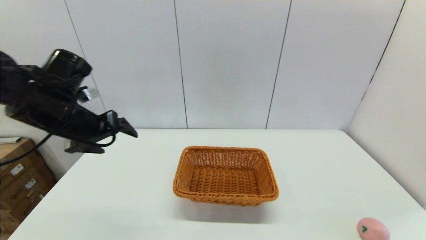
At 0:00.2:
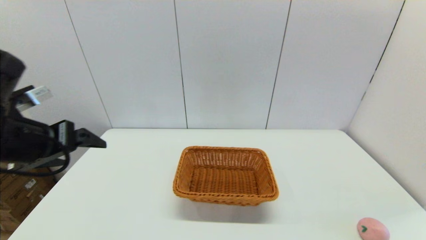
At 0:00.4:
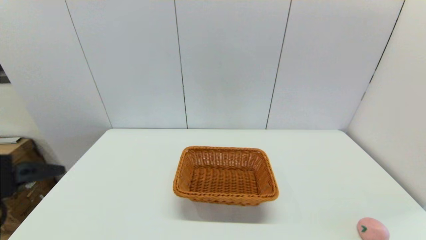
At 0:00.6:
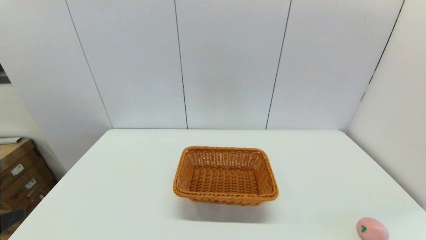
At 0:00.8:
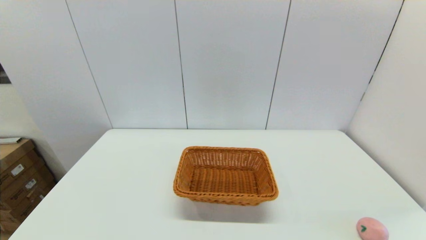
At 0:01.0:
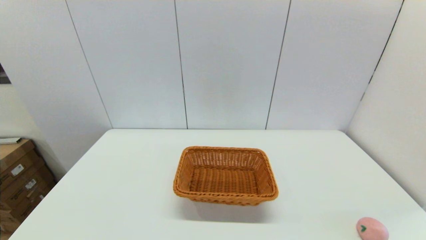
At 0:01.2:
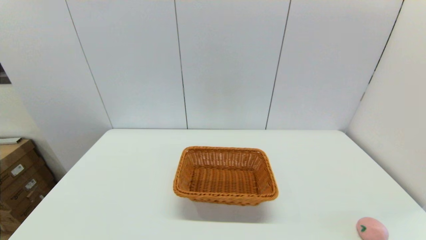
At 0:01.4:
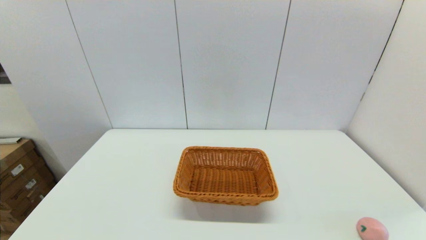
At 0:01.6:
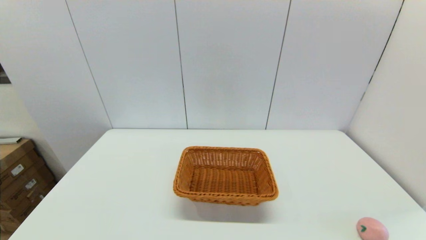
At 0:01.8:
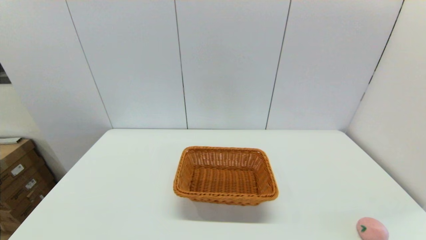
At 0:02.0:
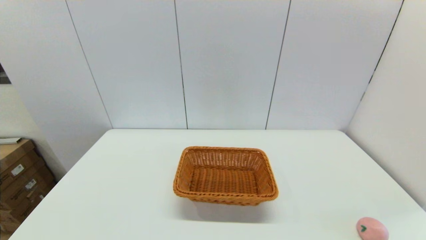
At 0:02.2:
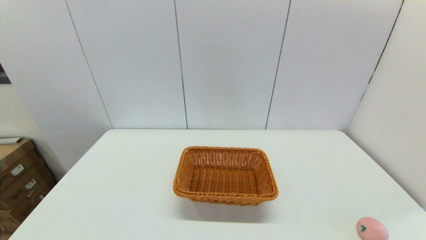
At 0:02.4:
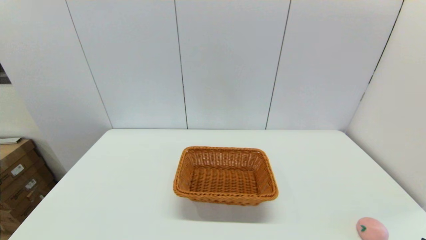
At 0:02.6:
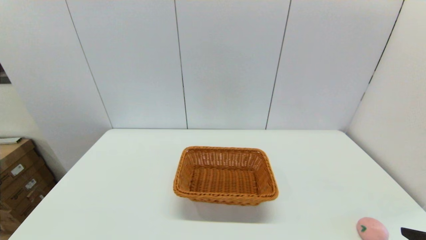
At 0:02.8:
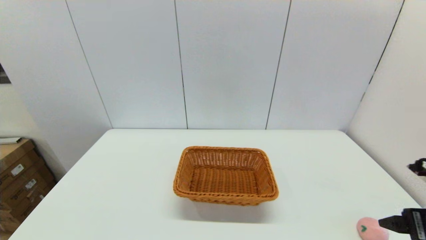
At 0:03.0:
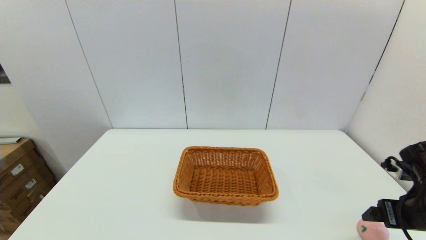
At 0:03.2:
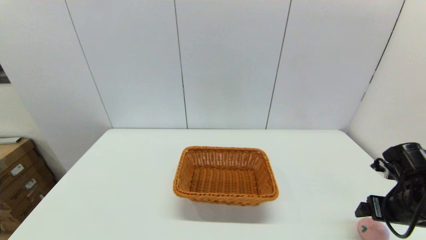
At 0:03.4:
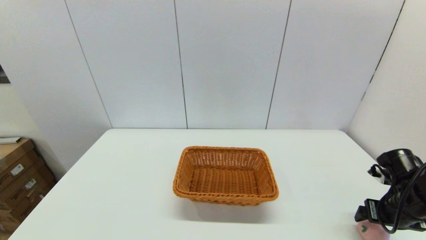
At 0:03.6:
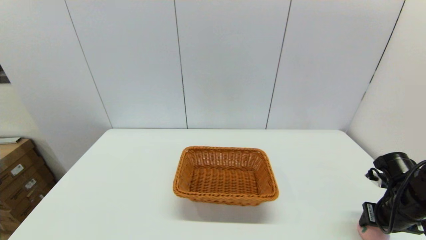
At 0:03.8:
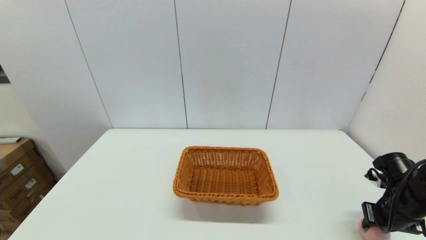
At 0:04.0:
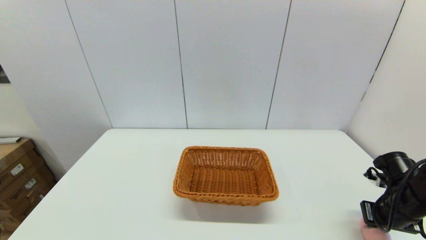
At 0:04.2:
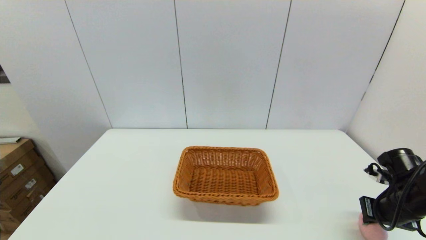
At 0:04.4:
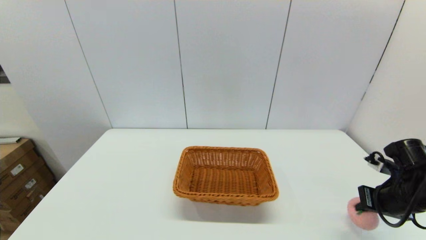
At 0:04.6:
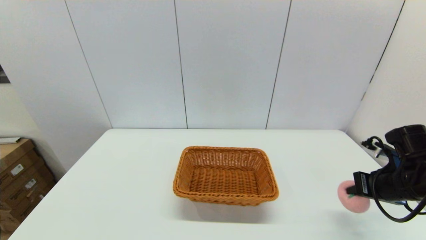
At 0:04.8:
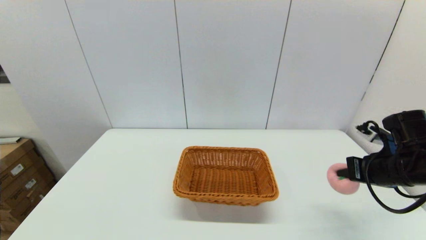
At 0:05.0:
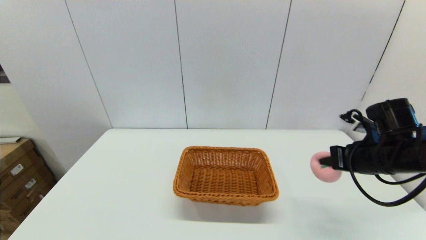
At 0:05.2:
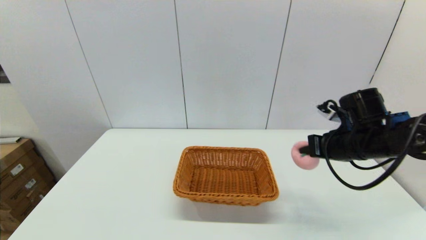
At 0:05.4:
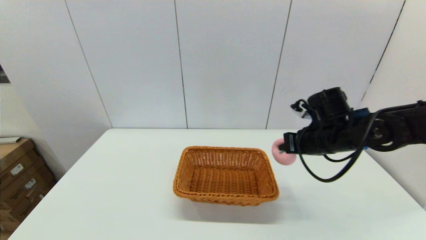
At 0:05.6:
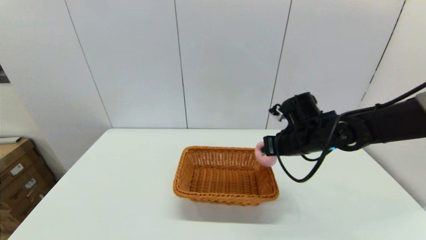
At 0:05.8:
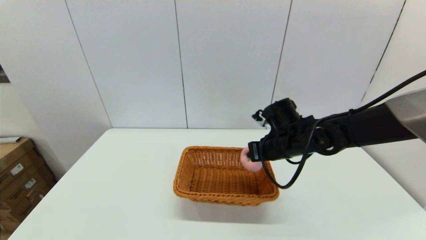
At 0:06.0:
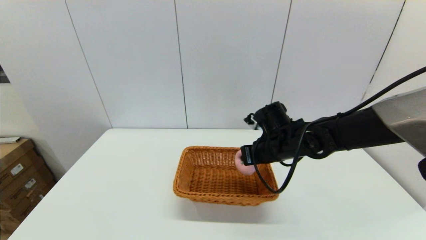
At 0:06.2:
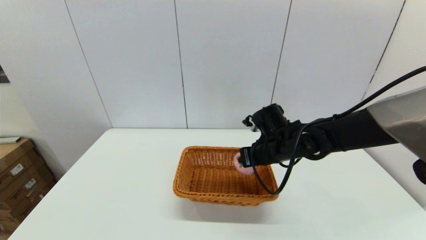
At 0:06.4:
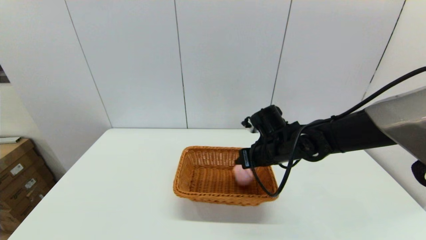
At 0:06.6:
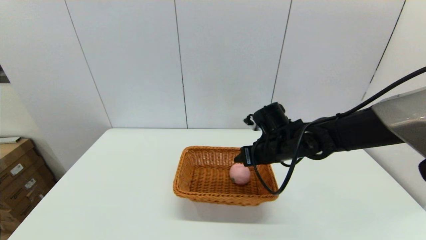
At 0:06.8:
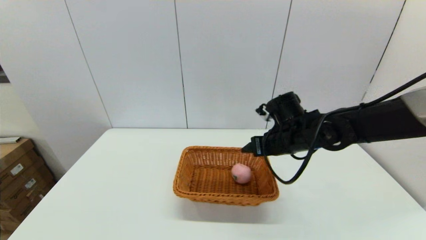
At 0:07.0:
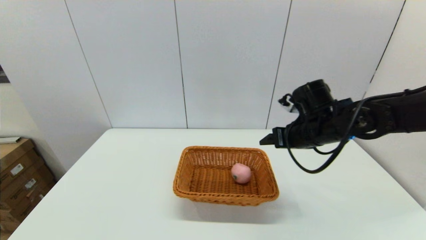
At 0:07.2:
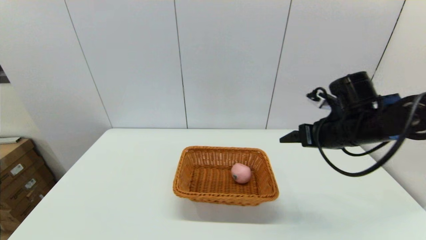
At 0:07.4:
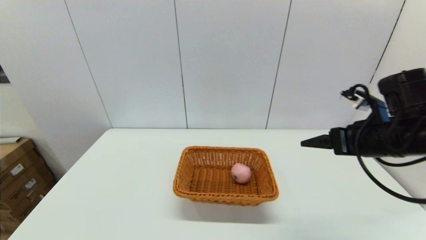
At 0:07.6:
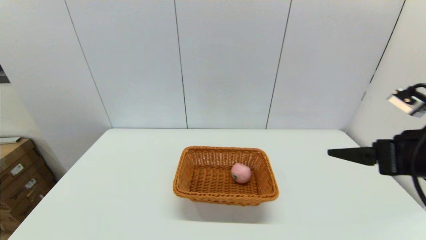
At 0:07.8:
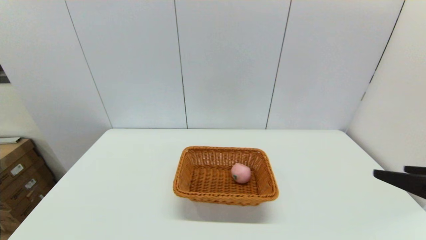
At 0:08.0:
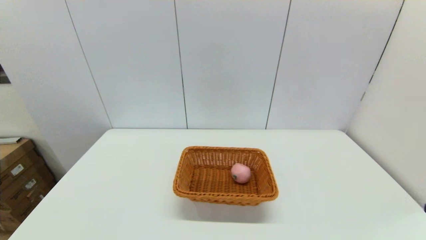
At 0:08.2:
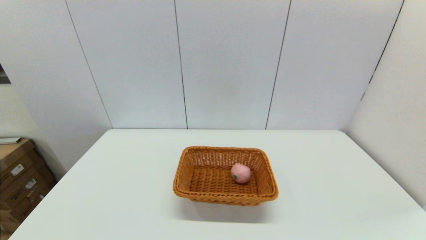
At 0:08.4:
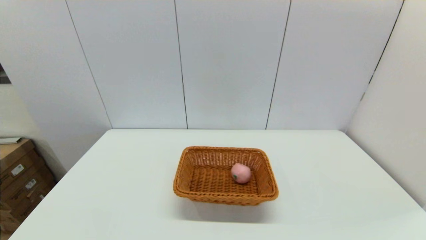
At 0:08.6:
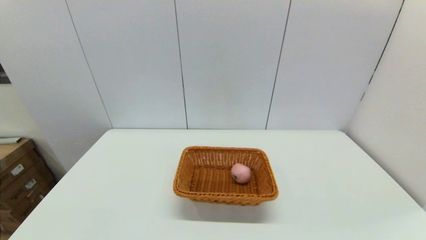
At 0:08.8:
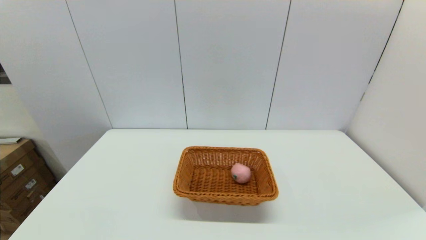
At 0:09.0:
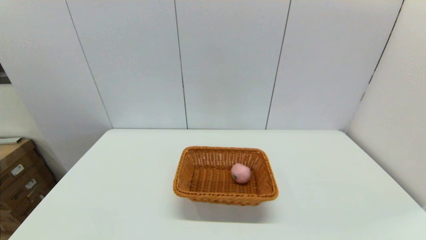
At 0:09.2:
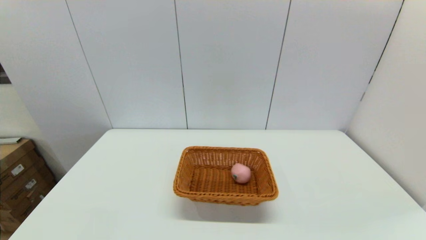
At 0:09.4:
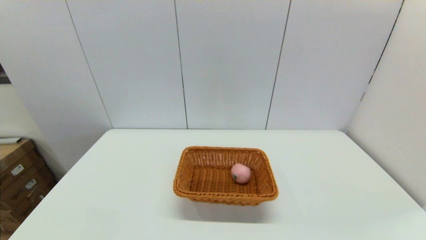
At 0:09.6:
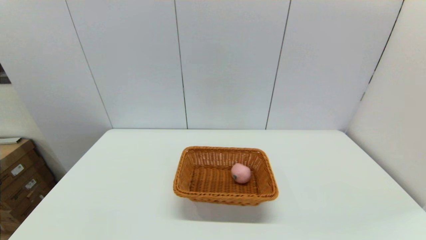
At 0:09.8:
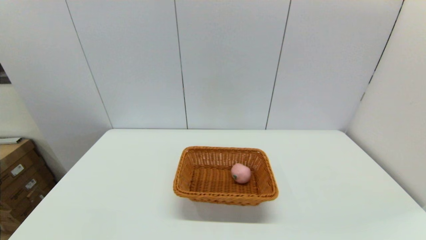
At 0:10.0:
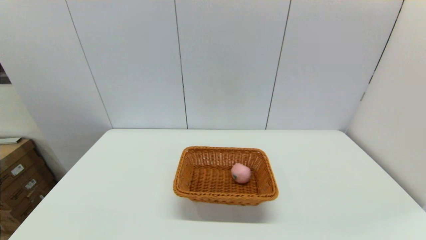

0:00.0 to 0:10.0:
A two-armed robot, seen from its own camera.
Step, 0:00.0 to 0:03.8: Grasp the peach with the right gripper.
Step, 0:04.2 to 0:06.4: Place the peach into the light basket with the right gripper.
0:00.0 to 0:01.4: The left gripper travels backward and downward by about 30 cm.
0:01.4 to 0:02.8: The right gripper heads forward, covering roughly 15 cm.
0:02.8 to 0:04.2: The right gripper moves forward and downward, some 10 cm, and closes its fingers.
0:04.2 to 0:05.8: The right gripper travels to the left and forward by some 25 cm.
0:05.8 to 0:07.2: The right gripper shifts roughly 15 cm to the right and upward, and opens its fingers.
0:07.2 to 0:08.6: The right gripper moves backward, some 35 cm.
